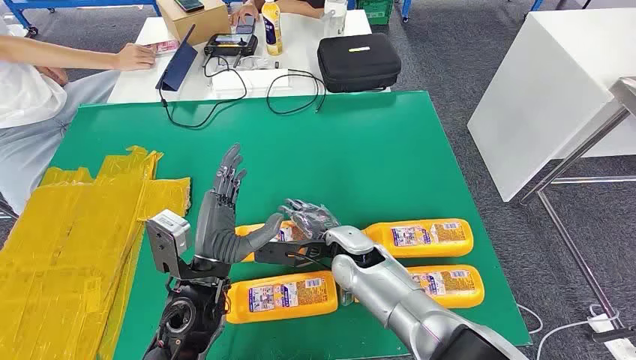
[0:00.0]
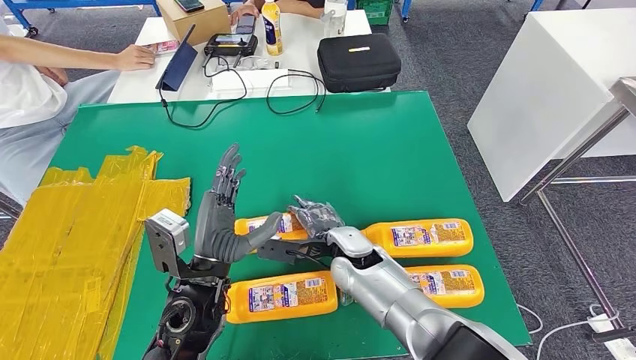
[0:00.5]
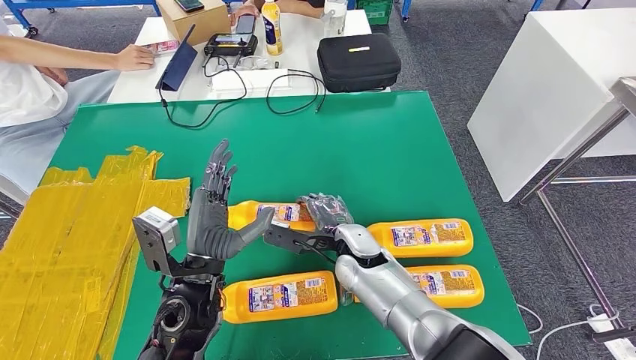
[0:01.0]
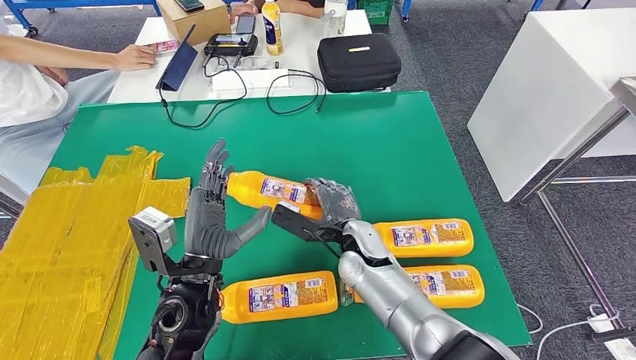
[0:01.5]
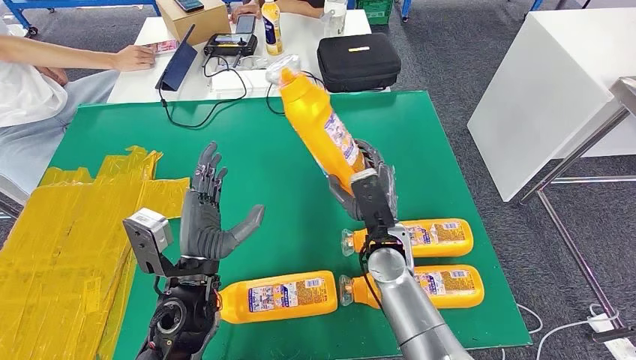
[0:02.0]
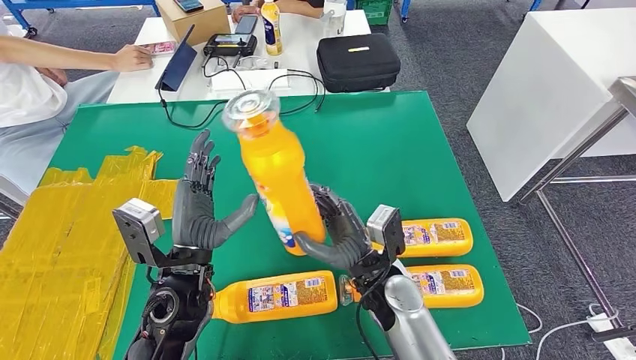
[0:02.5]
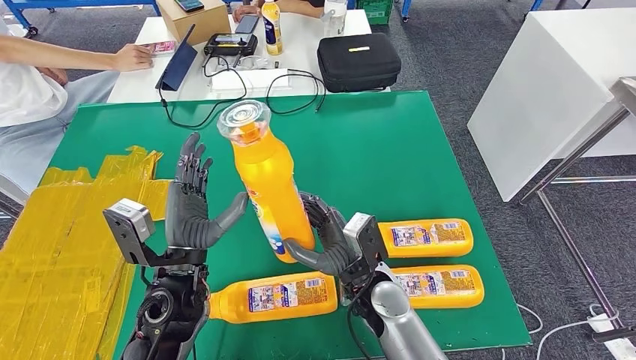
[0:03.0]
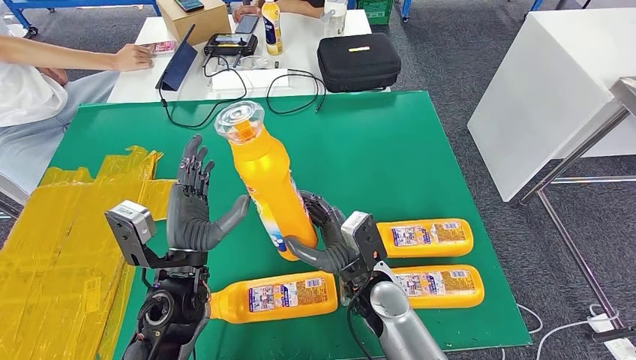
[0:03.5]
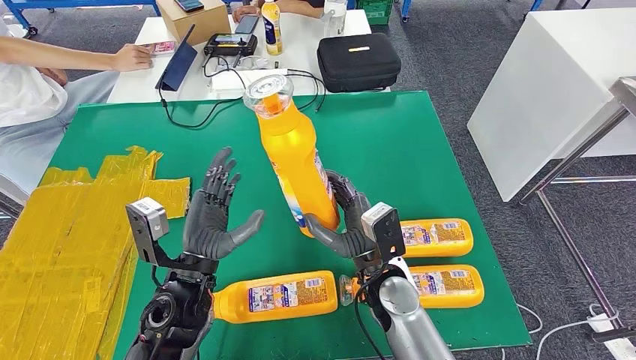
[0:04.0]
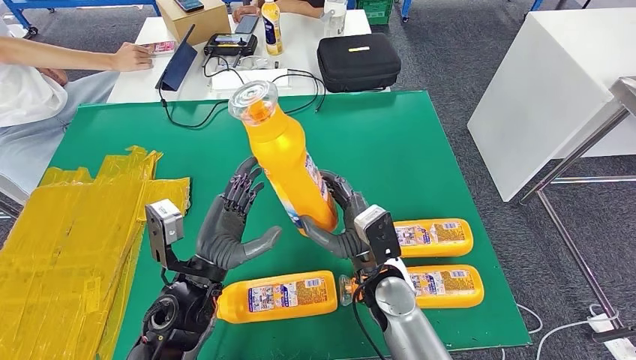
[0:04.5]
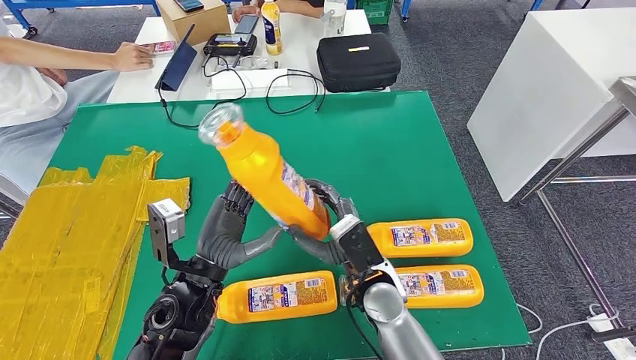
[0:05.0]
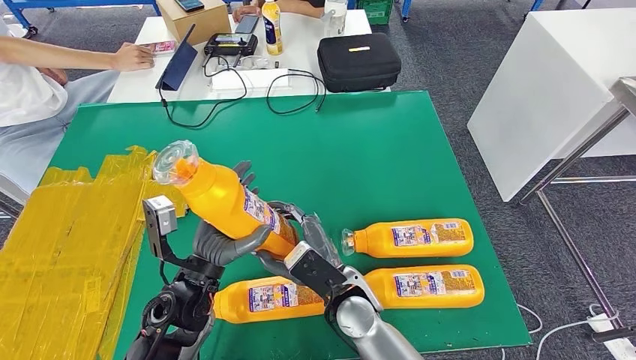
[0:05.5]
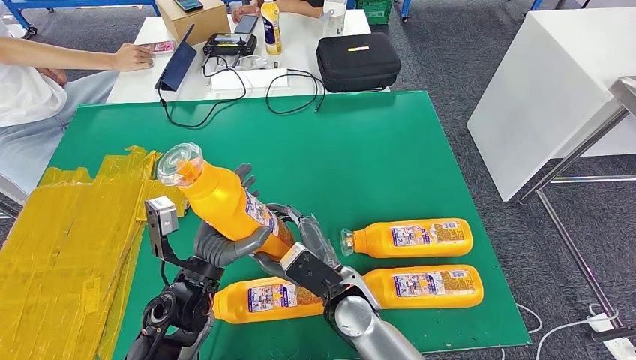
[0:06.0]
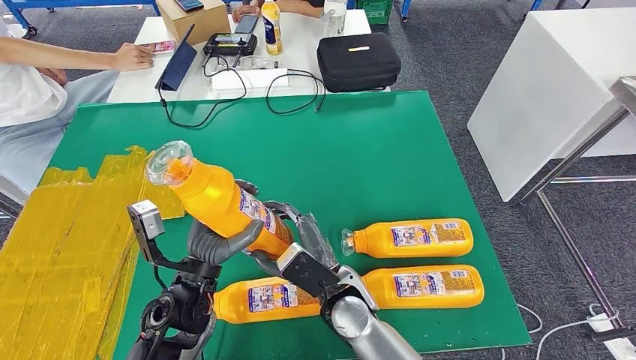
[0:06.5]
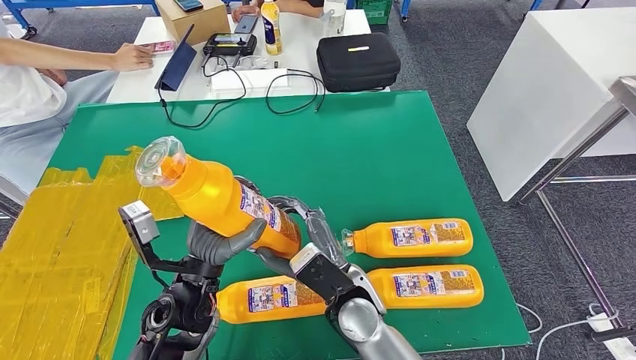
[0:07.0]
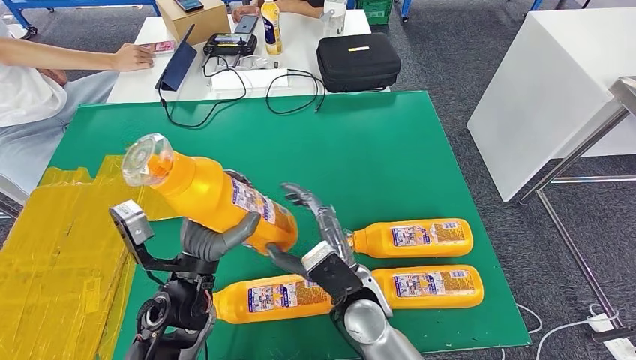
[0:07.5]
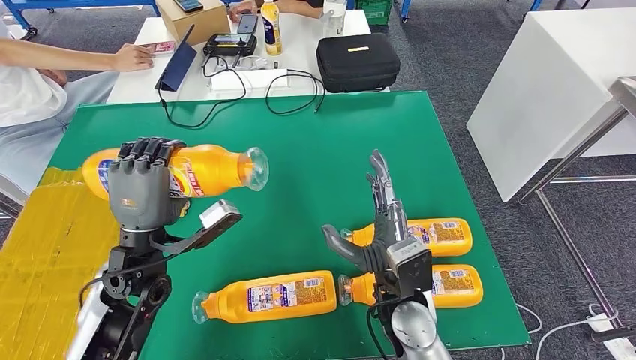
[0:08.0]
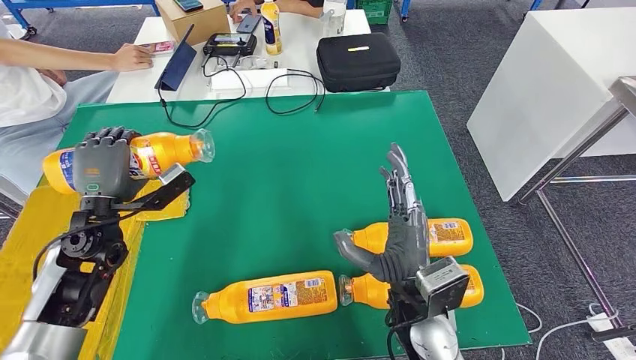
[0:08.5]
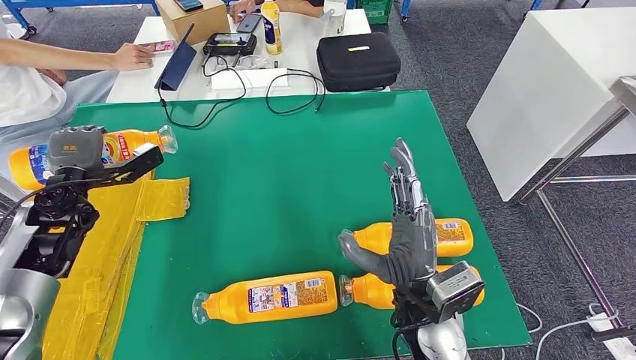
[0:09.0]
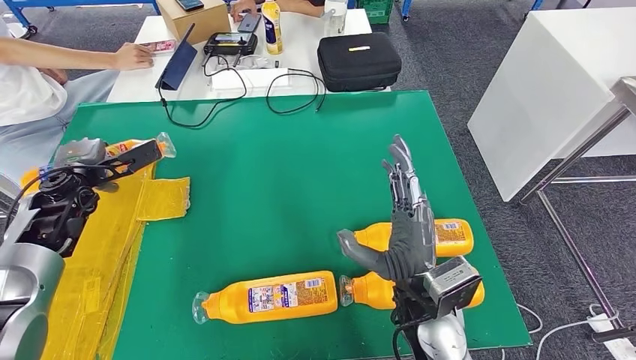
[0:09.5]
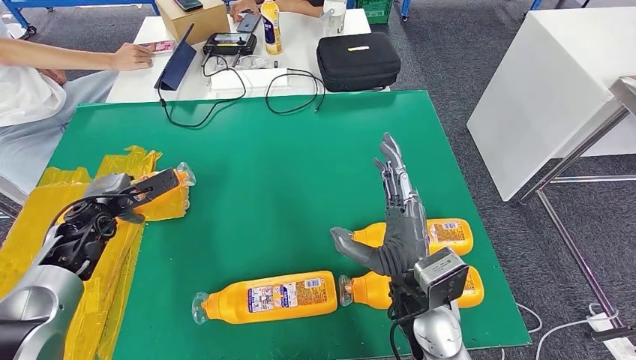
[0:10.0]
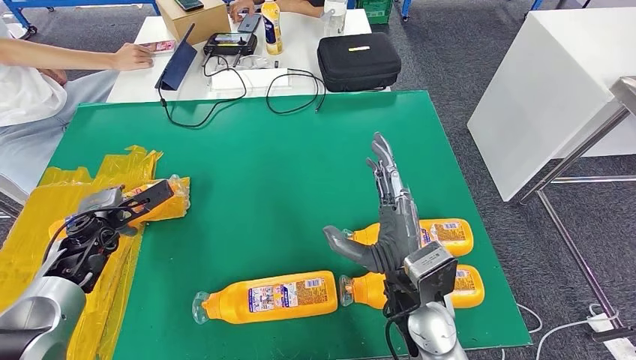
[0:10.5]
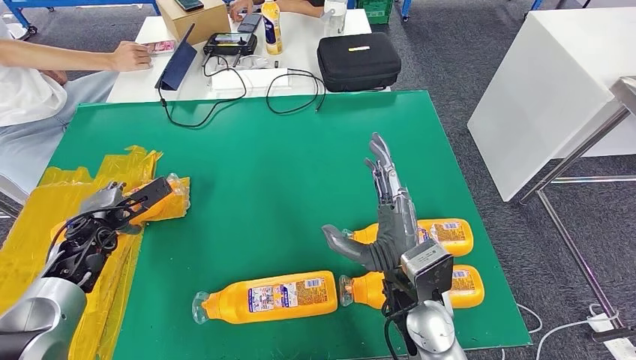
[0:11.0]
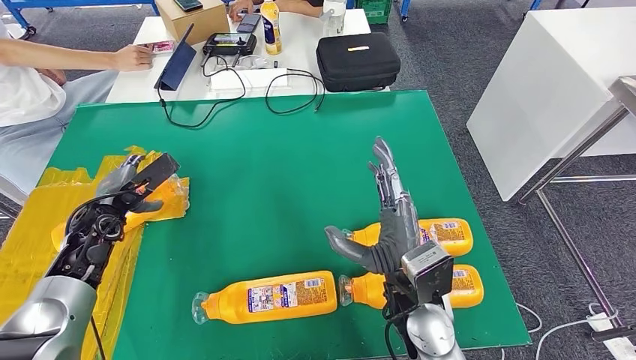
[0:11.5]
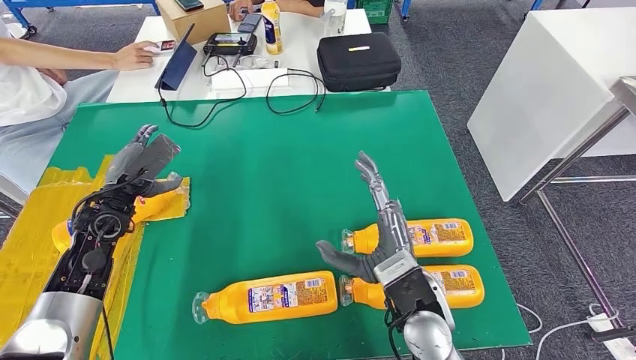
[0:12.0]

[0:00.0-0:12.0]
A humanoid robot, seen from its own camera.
Step, 0:00.0 to 0:03.0: Take the fast-moving consumer goods bottle from the table.
0:04.0 to 0:06.0: The right hand goes roughly 5 cm to the left.
0:06.0 to 0:08.0: The left hand is displaced to the left and upward by roughly 10 cm; the right hand goes approximately 10 cm to the right.
0:10.0 to 0:12.0: The left hand shifts by roughly 5 cm.

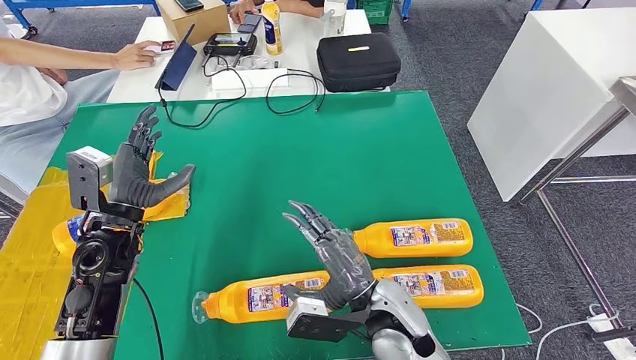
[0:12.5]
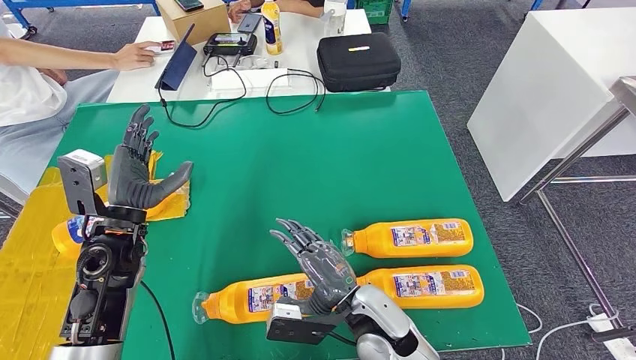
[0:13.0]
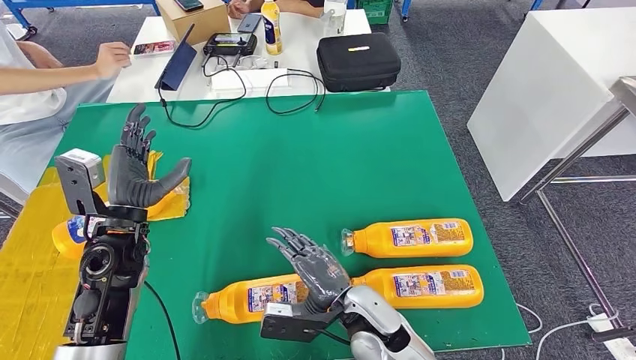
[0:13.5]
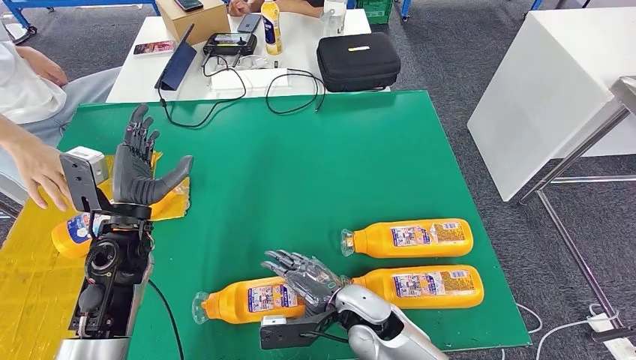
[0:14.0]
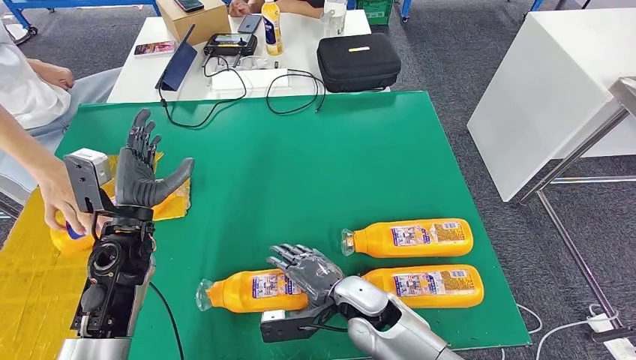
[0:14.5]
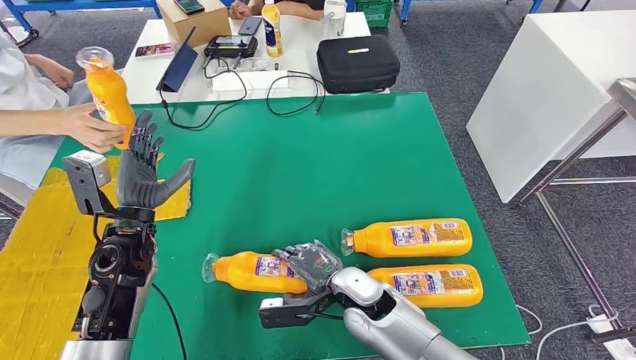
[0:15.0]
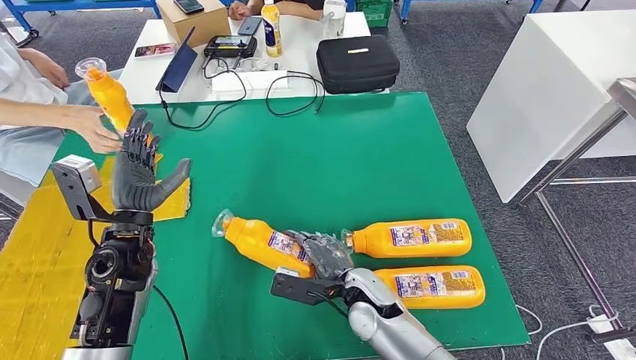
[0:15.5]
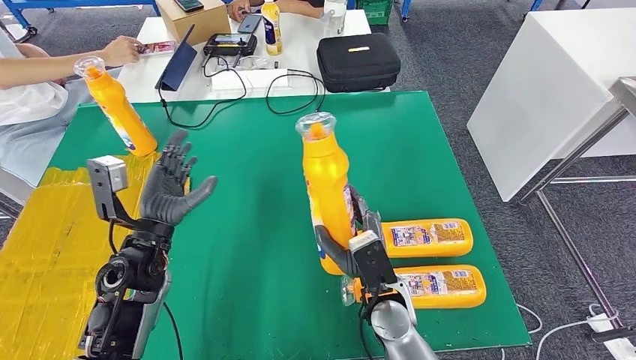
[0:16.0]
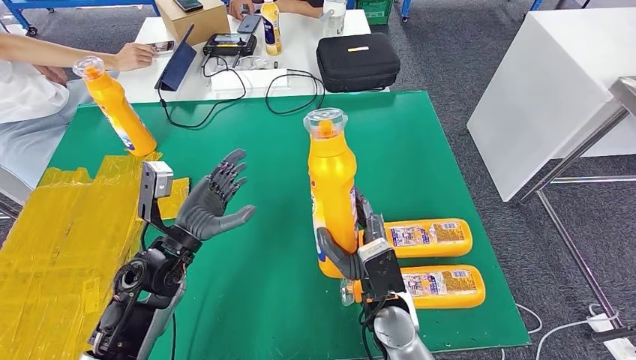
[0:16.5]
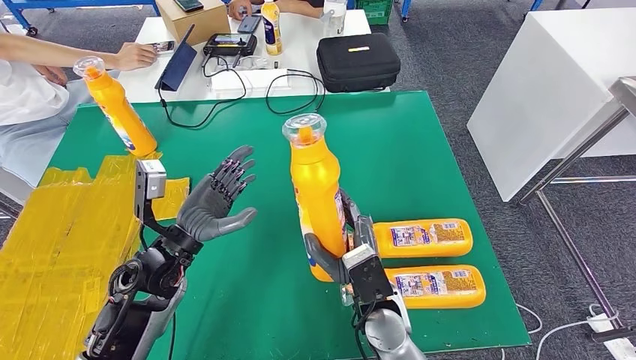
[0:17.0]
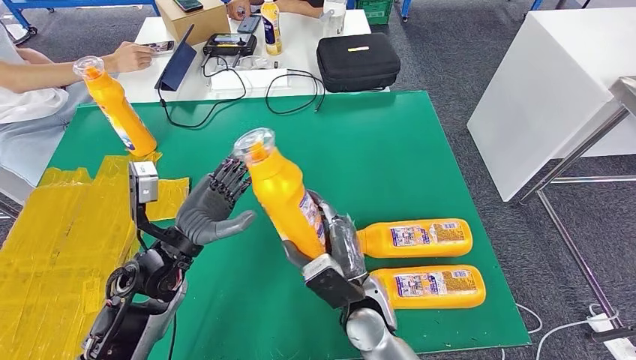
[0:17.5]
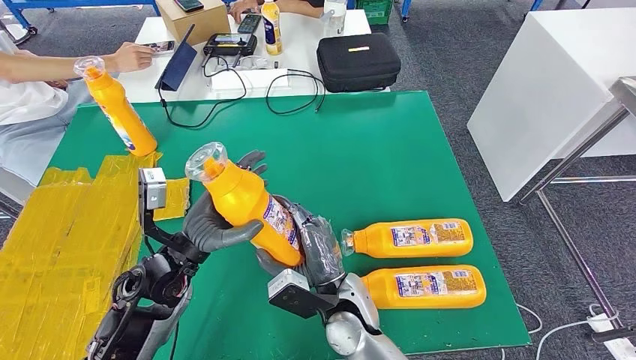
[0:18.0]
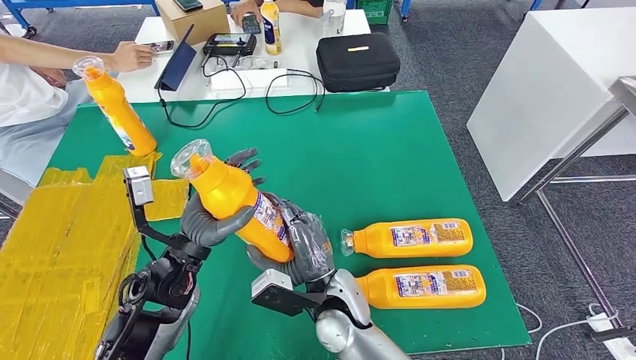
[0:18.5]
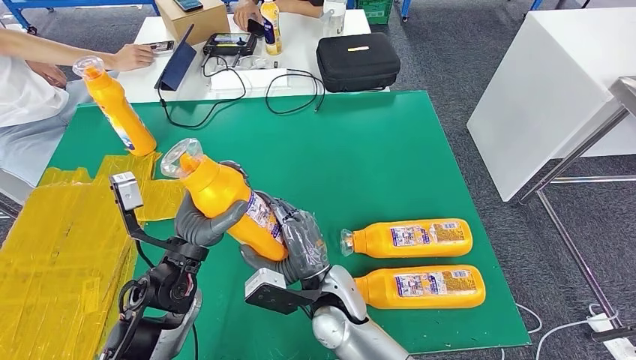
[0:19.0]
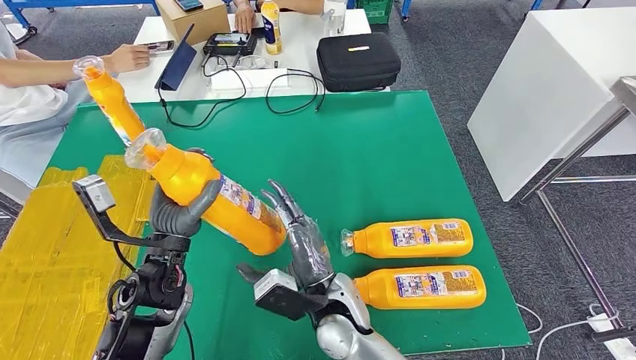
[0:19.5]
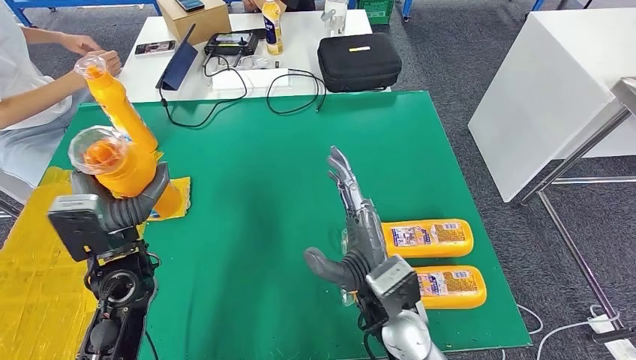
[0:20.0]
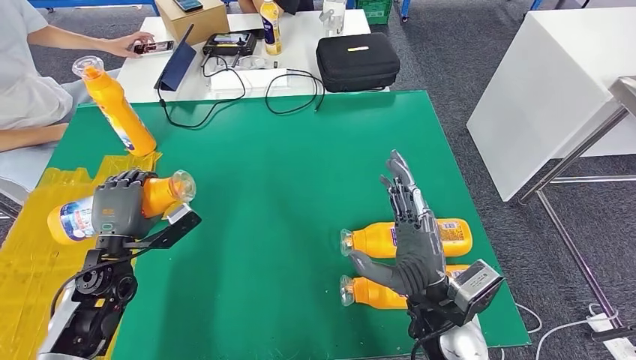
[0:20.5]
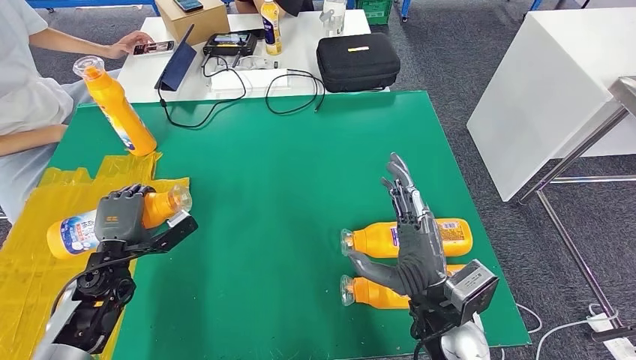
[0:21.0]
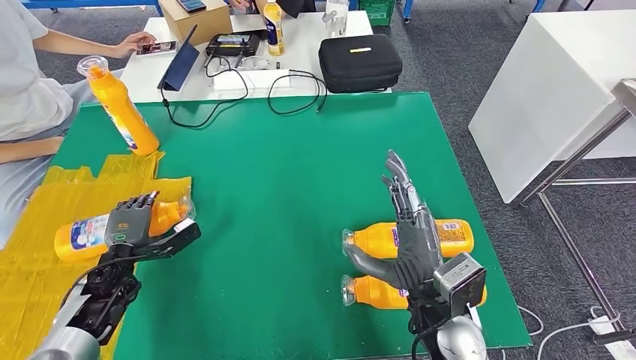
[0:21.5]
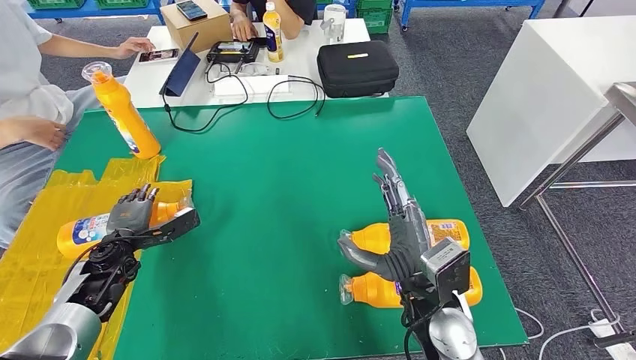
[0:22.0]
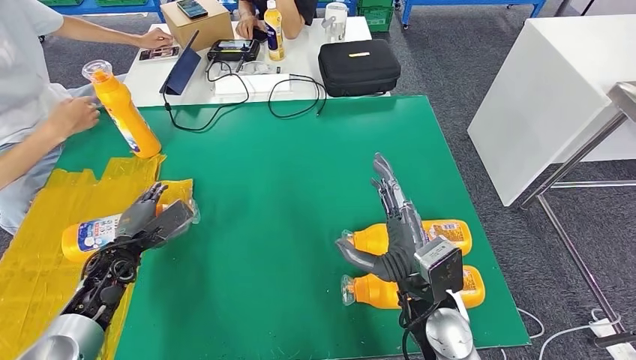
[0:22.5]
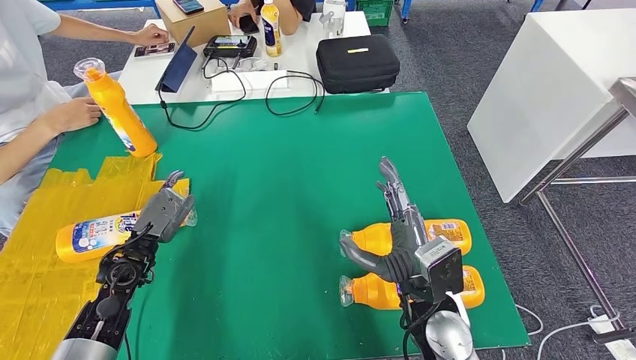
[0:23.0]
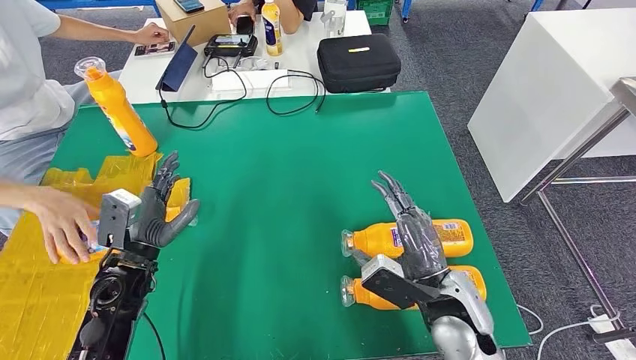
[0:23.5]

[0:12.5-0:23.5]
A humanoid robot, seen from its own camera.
Step, 0:15.0 to 0:18.0: Pick up the fast-moving consumer goods bottle from the table.
0:12.5 to 0:14.5: The right hand goes about 5 cm downward.
0:16.0 to 0:18.0: The right hand is displaced to the left by about 5 cm.
0:21.5 to 0:23.5: The left hand is displaced upward and to the right by roughly 10 cm.
